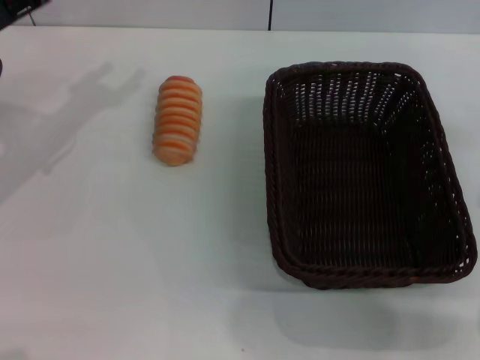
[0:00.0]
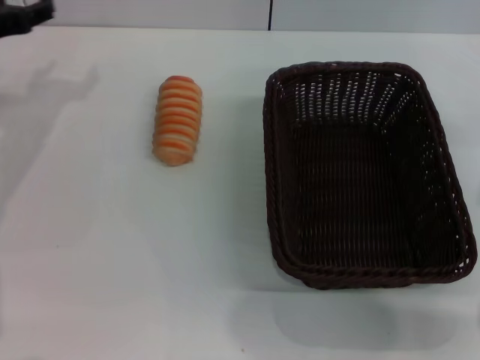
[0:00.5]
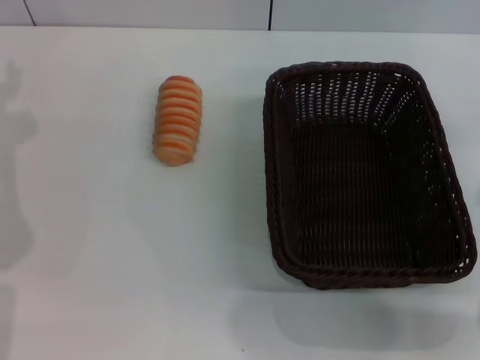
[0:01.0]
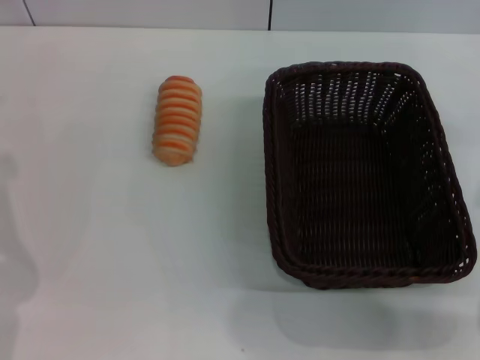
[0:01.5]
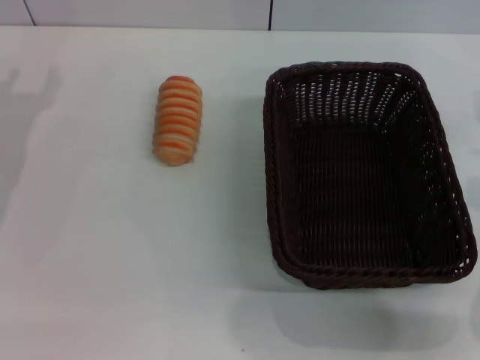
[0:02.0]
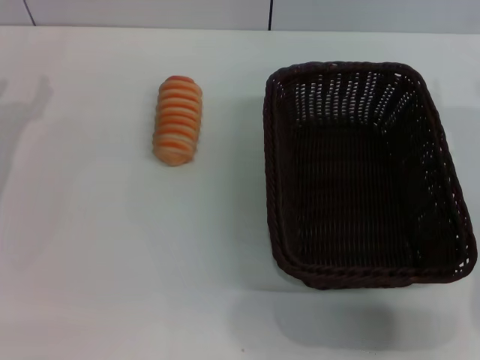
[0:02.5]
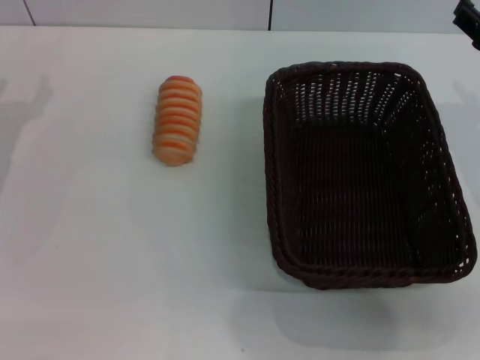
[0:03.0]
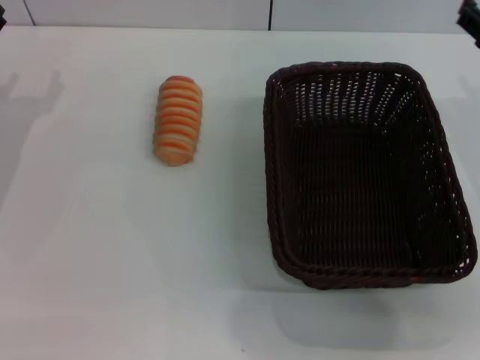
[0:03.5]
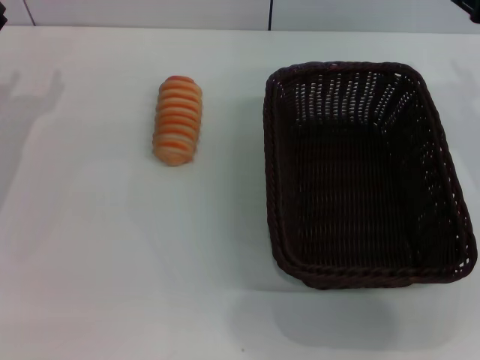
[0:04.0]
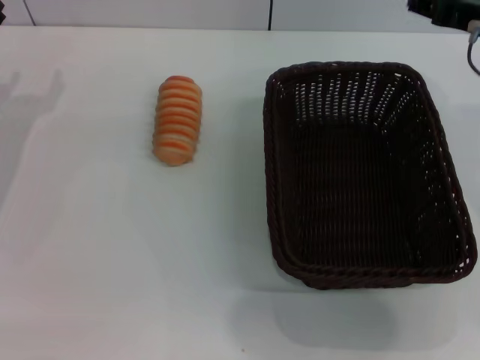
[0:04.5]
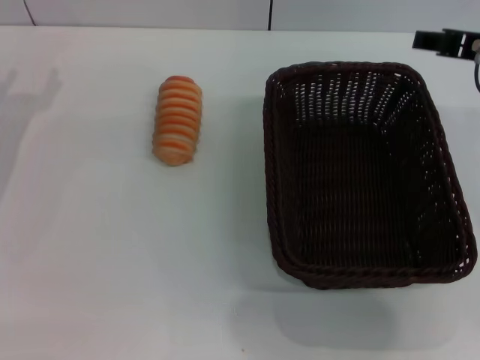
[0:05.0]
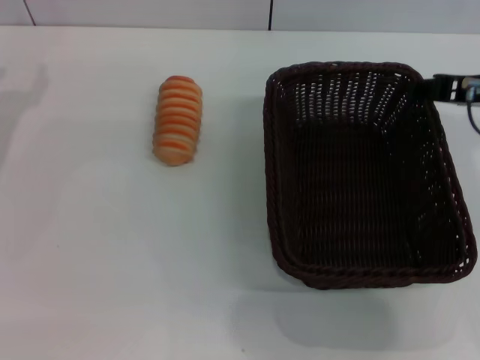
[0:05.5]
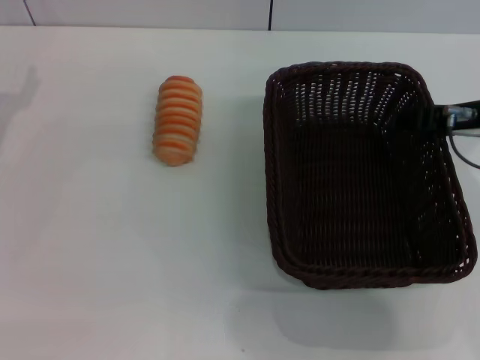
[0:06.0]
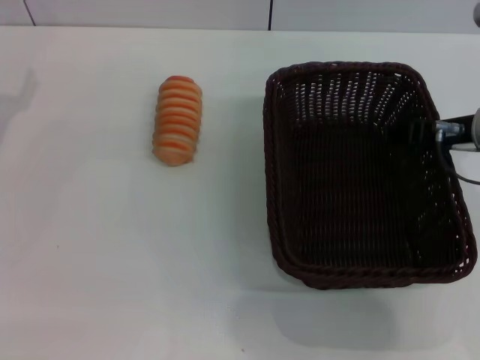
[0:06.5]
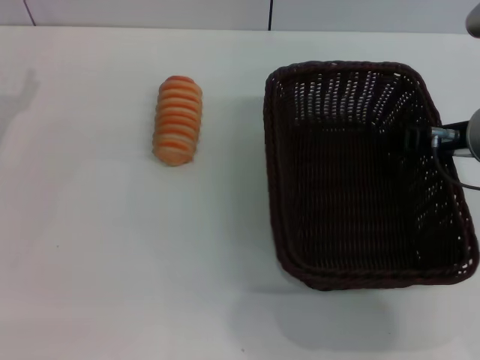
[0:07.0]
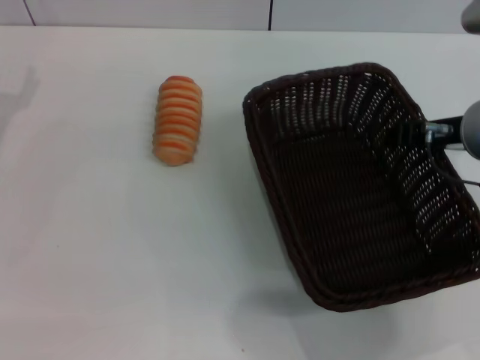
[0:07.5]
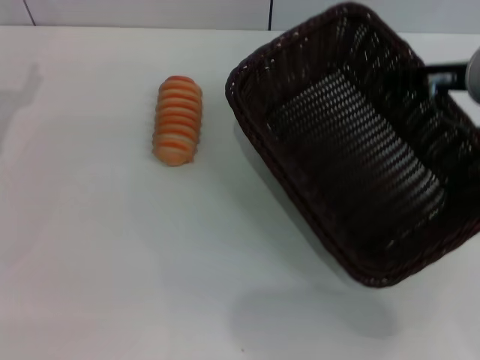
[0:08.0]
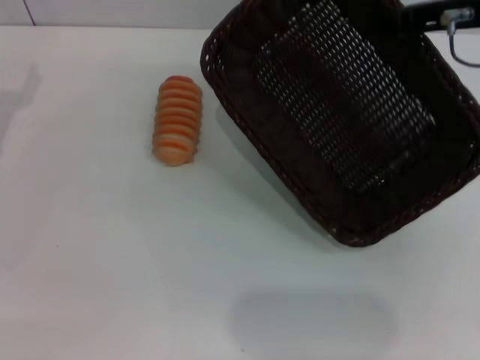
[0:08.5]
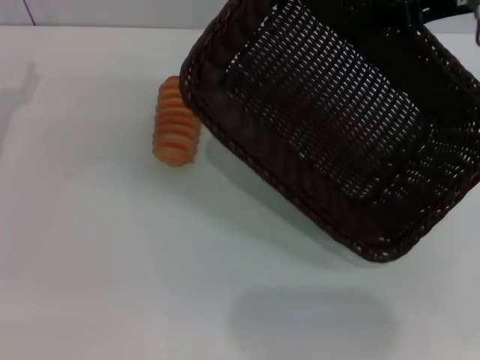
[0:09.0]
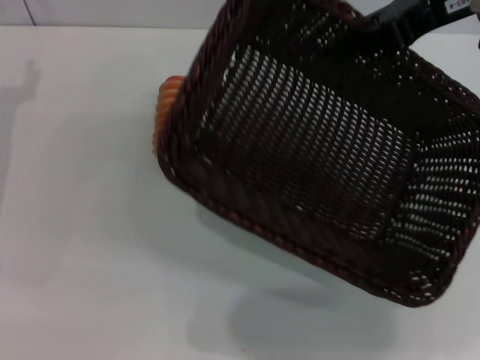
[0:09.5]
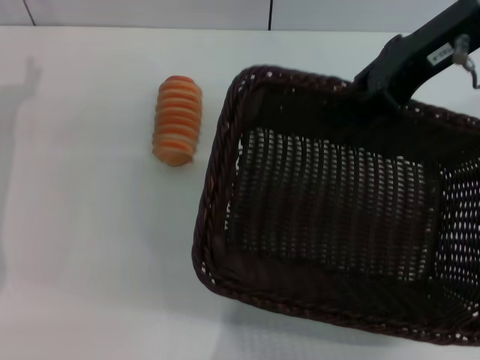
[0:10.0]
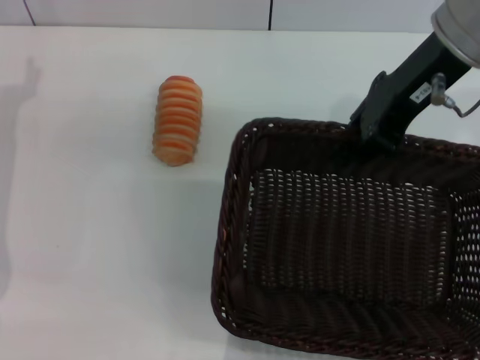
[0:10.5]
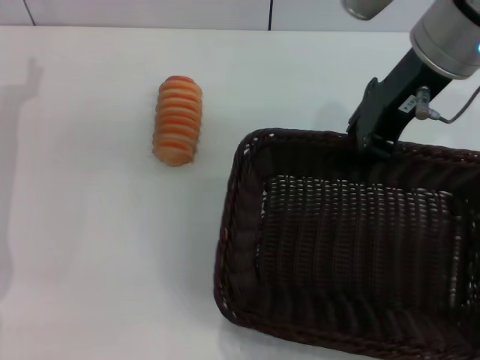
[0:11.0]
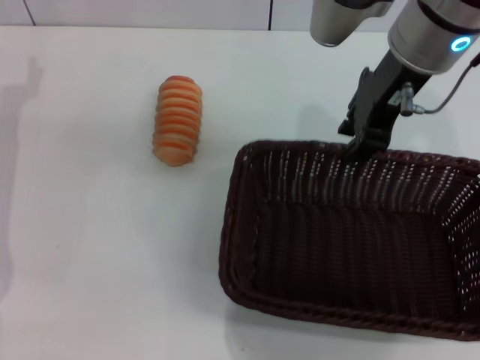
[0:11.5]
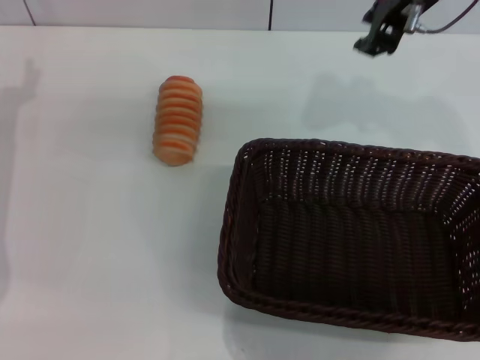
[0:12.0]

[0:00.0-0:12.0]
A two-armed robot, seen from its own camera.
Step, 0:00.0 to 0:08.0: Pick up the dark basket with the right gripper.
Step, 0:08.5 to 0:11.5: Place the dark basket in the center of view with the right gripper.
0:04.0 to 0:06.0: The right gripper ends up about 5 cm from where it was.
0:06.0 to 0:08.0: The right gripper closes up.
0:08.0 to 0:10.0: The right gripper travels upward by roughly 10 cm.
0:10.0 to 0:12.0: The right gripper moves about 5 cm.

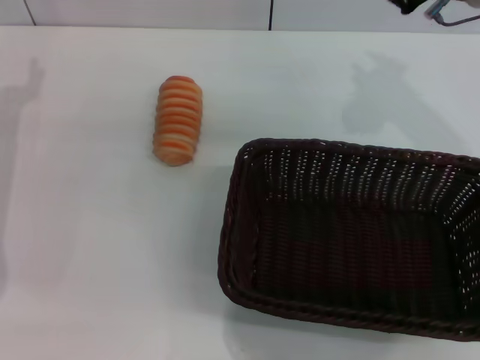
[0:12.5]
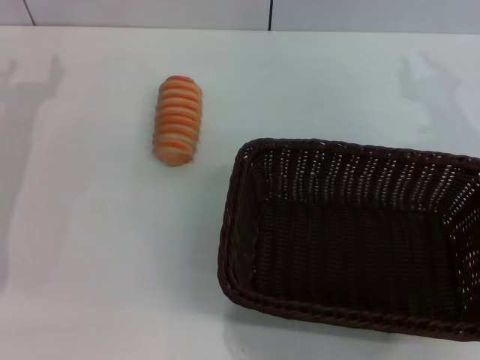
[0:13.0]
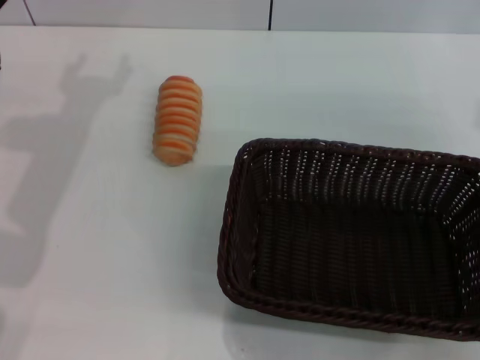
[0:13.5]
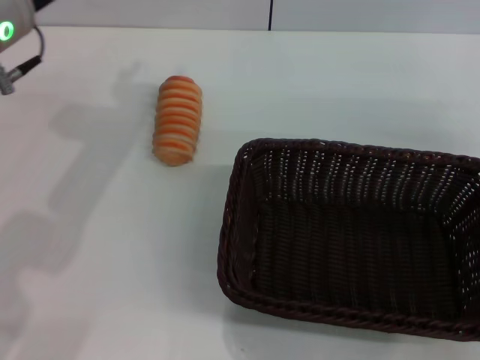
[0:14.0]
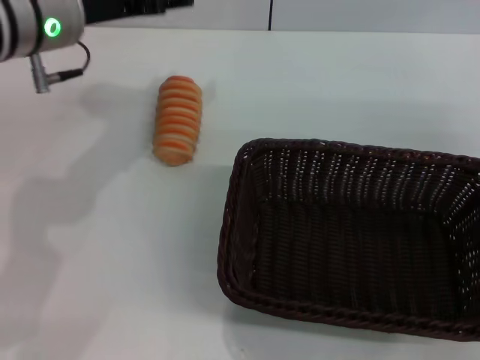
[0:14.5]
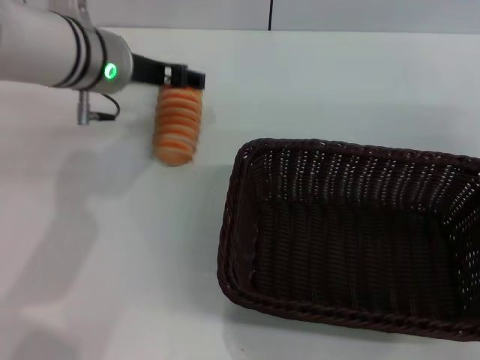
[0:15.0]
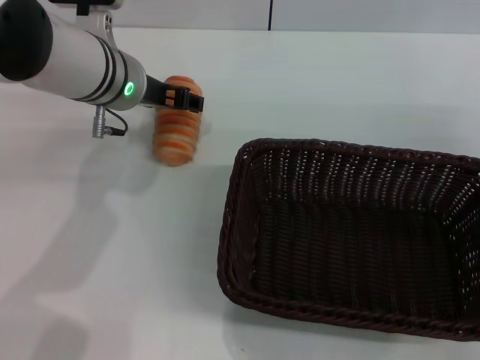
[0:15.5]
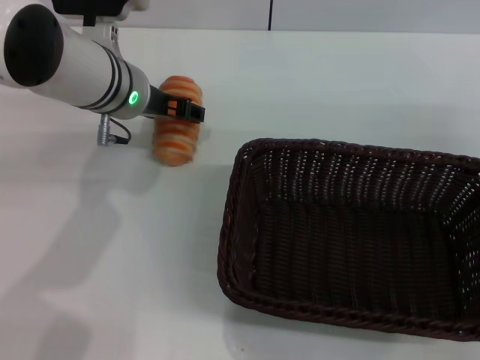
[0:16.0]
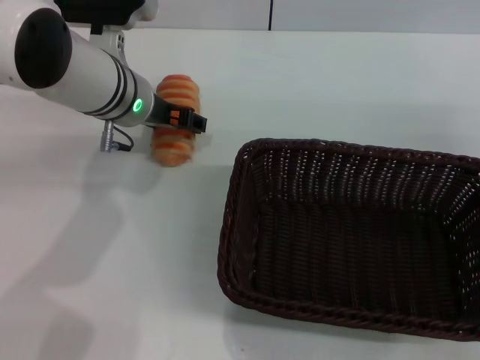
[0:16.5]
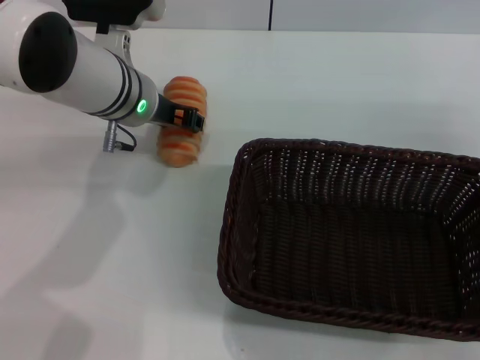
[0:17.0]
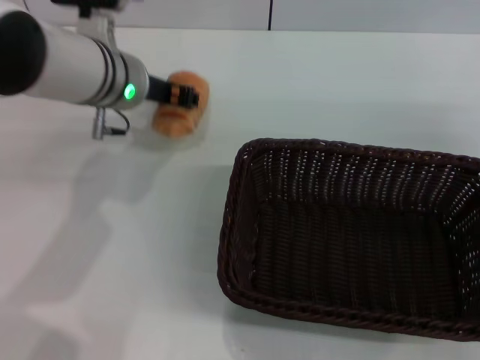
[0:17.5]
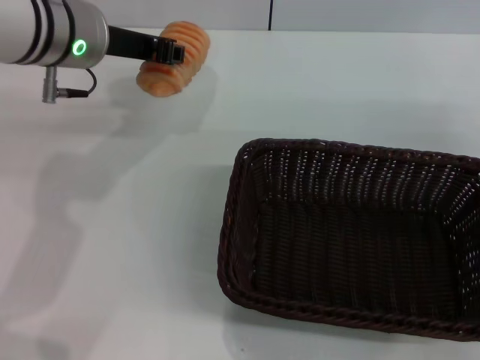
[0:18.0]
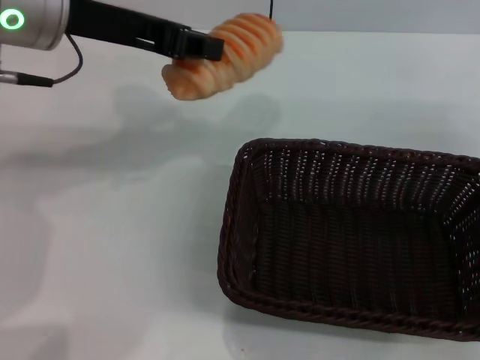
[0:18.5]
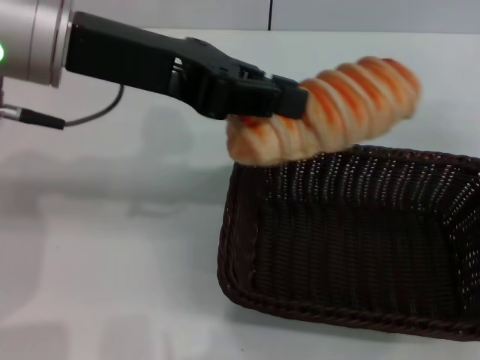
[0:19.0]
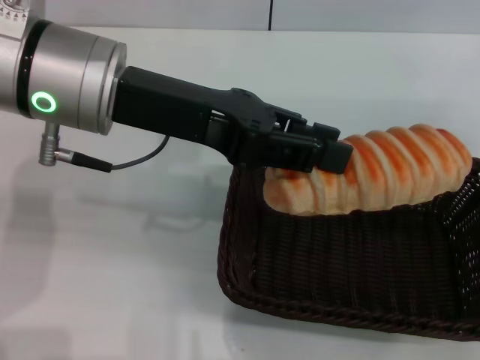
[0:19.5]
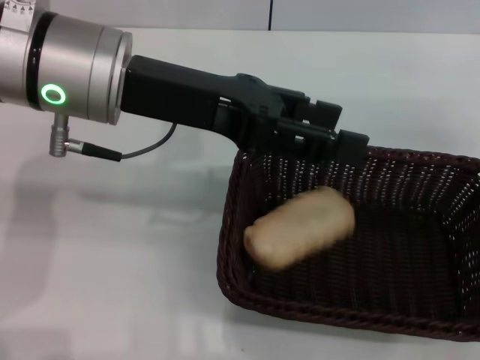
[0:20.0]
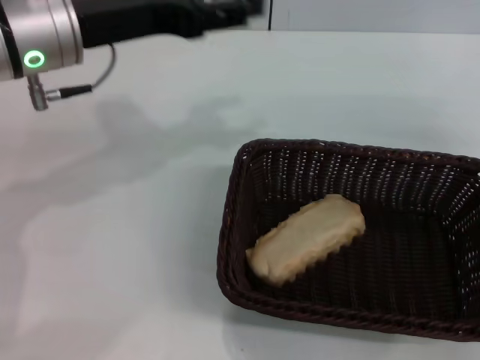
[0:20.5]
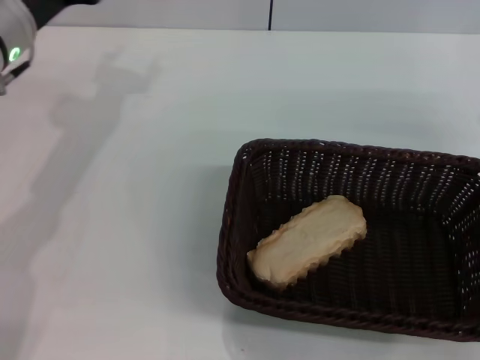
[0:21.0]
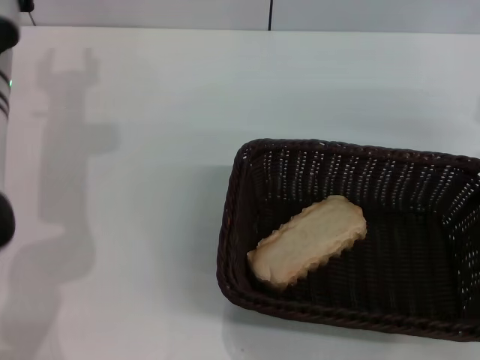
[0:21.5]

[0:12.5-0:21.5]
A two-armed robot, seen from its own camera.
Step, 0:12.5 to 0:17.5: Pick up the long bread with the left gripper.
Step, 0:18.0 to 0:20.0: Place the long bread into the dark basket with the left gripper.
0:12.5 to 0:14.5: The right gripper heads downward, to the right and backward, covering approximately 20 cm. Meanwhile the left gripper is displaced to the right and upward by roughly 15 cm.
0:14.5 to 0:17.0: The left gripper is displaced downward and to the right by about 10 cm.
0:17.0 to 0:19.5: The left gripper travels upward and backward by some 15 cm, and closes its fingers.
0:19.5 to 0:21.5: The left gripper shifts some 15 cm downward, to the left and forward, and opens up.

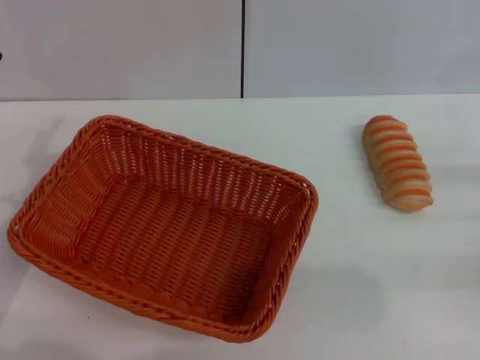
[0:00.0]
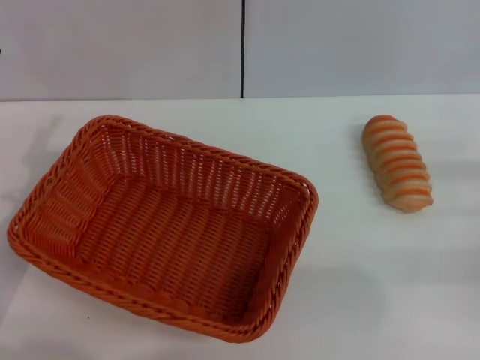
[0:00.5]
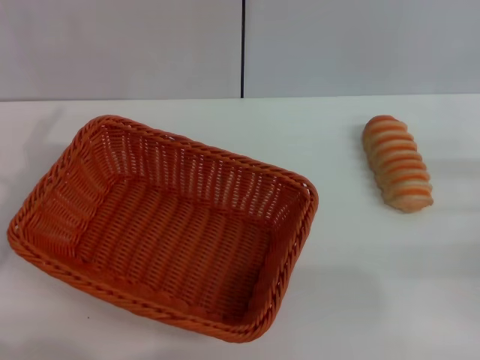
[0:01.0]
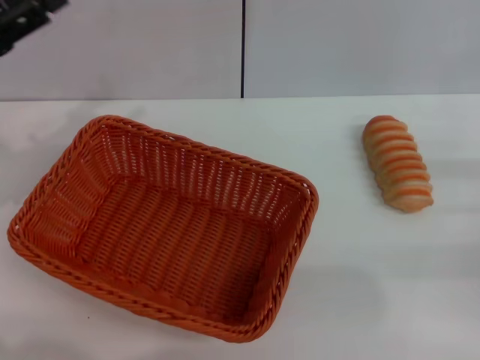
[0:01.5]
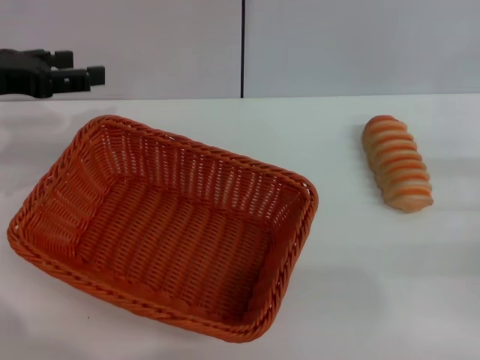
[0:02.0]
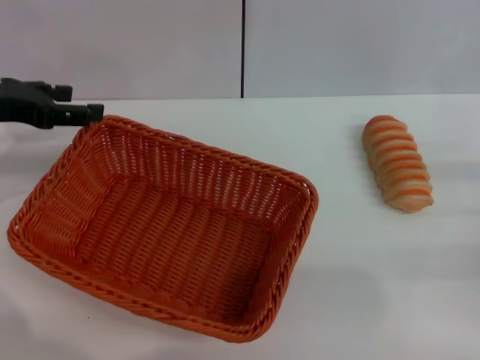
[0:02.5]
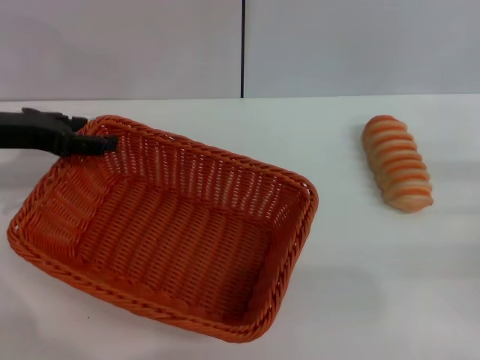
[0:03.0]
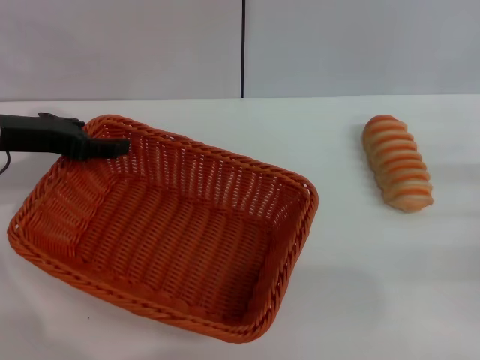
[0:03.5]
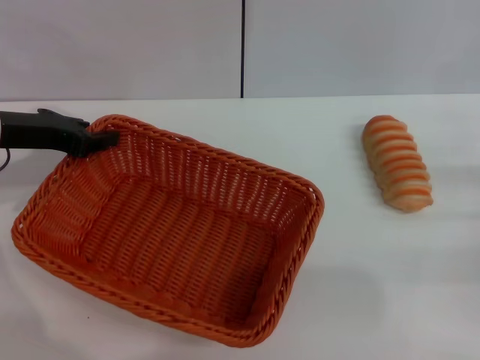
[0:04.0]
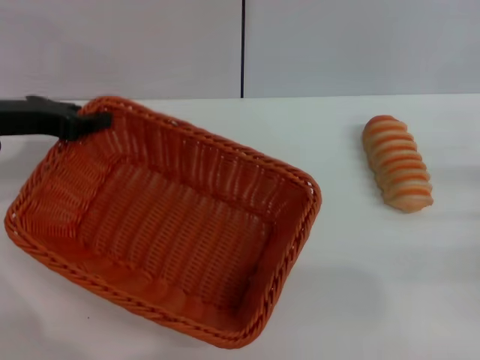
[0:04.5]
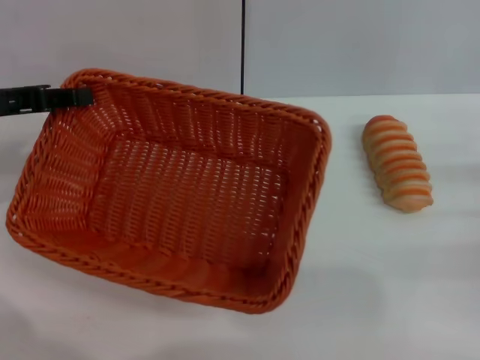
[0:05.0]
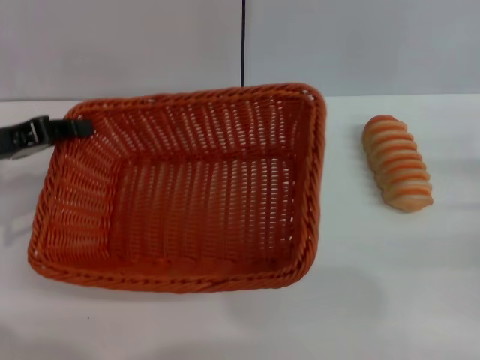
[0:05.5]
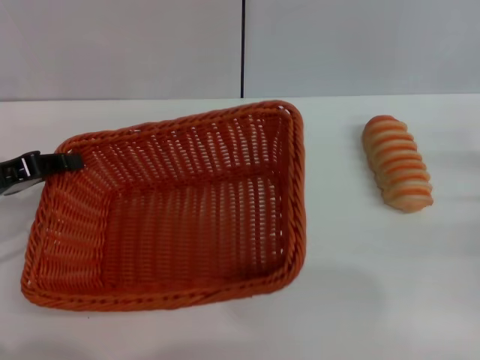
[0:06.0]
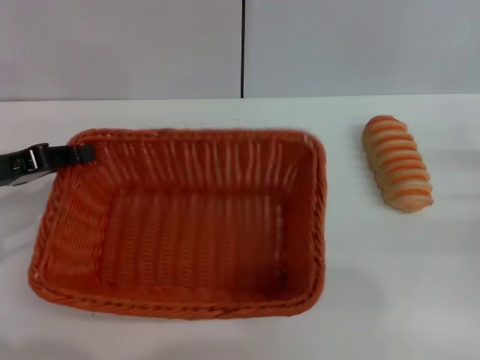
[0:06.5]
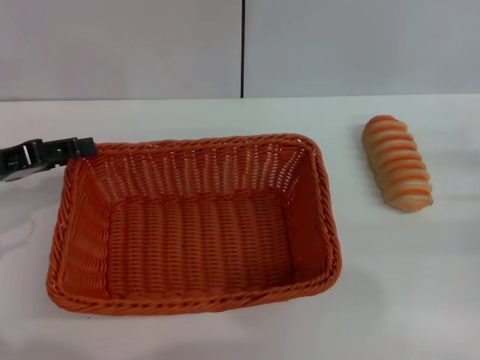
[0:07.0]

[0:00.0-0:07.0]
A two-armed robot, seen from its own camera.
Step, 0:00.0 to 0:04.5: Pick up the light basket with the left gripper.
0:00.0 to 0:02.0: The left gripper heads forward and upward, covering some 15 cm.
0:02.0 to 0:03.5: The left gripper changes place by about 5 cm.
0:03.5 to 0:05.0: The left gripper closes.
0:05.0 to 0:07.0: The left gripper moves downward, some 5 cm, and opens up.
